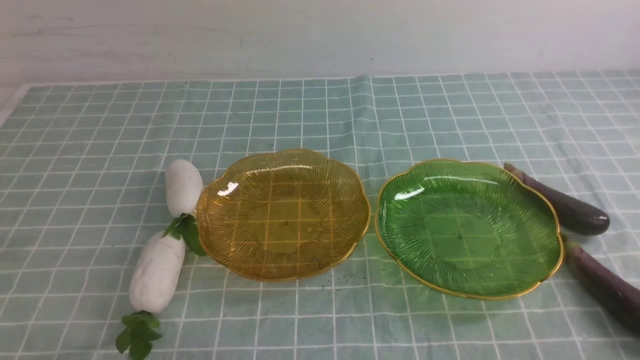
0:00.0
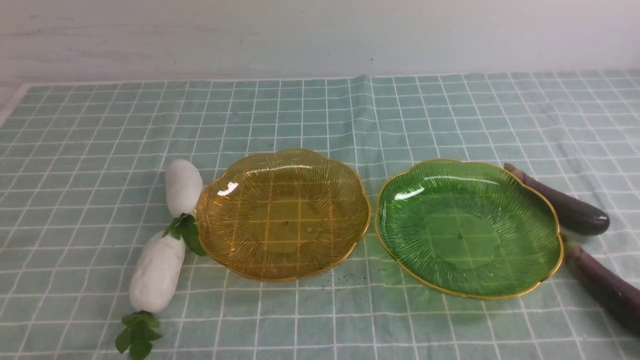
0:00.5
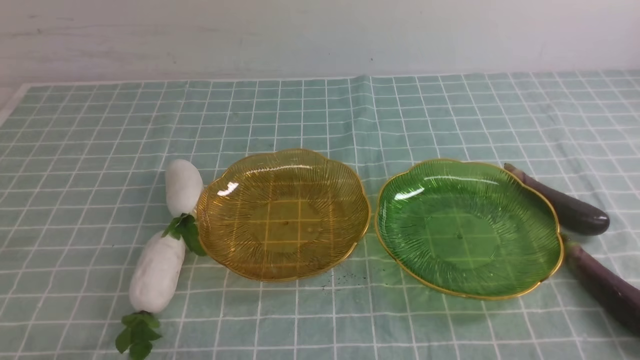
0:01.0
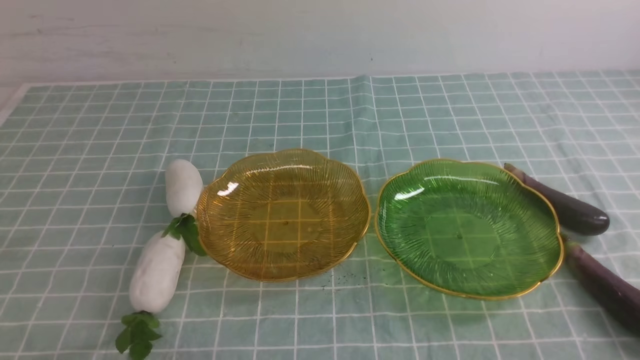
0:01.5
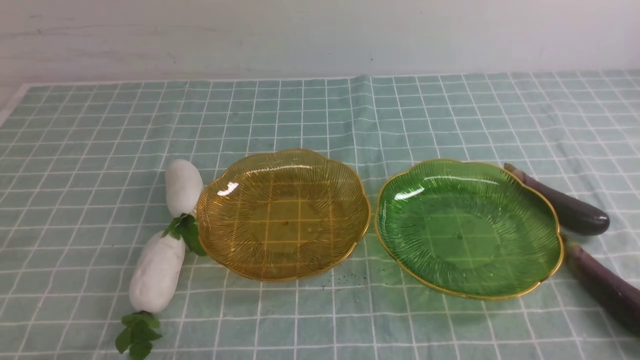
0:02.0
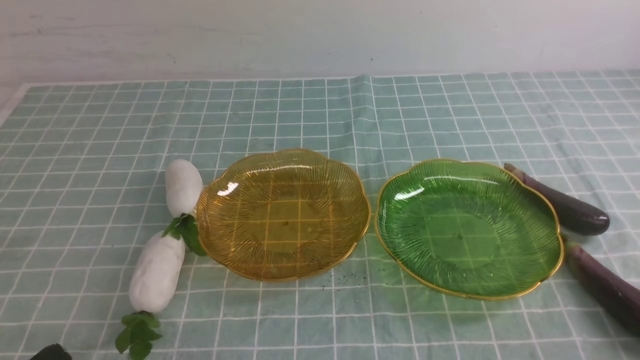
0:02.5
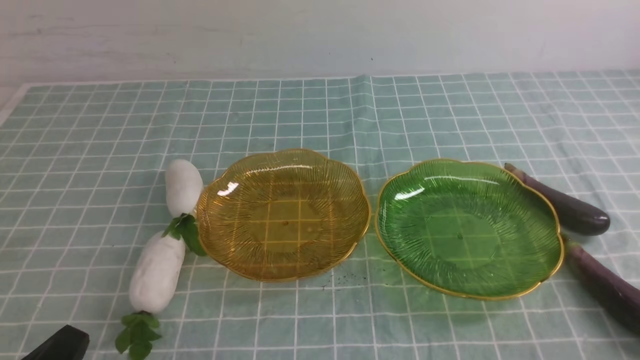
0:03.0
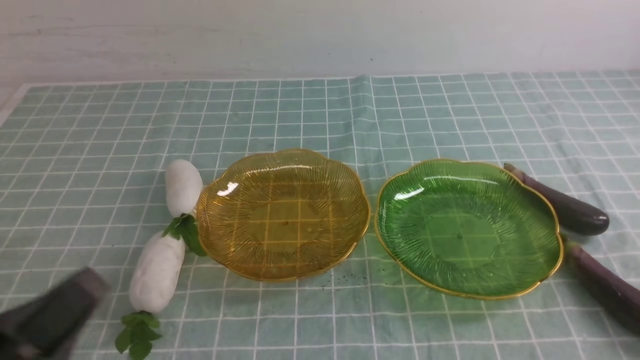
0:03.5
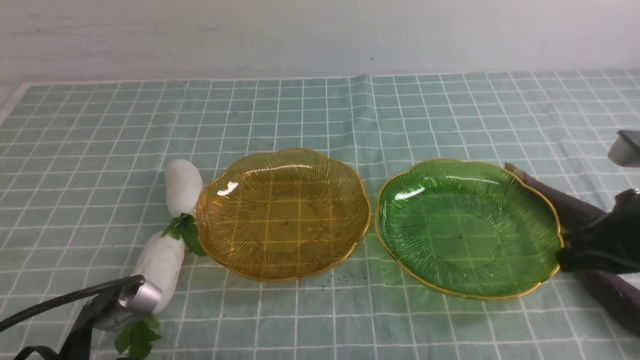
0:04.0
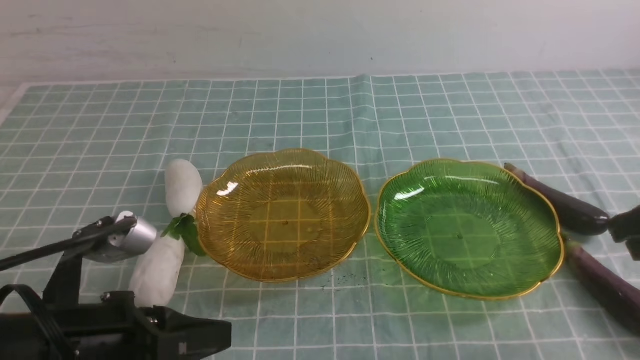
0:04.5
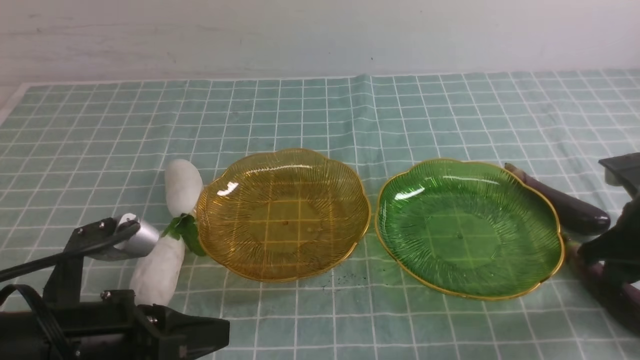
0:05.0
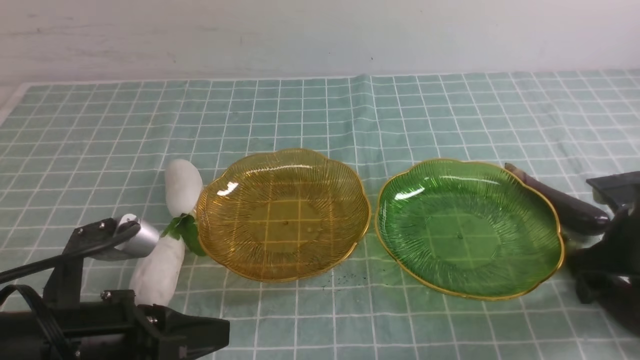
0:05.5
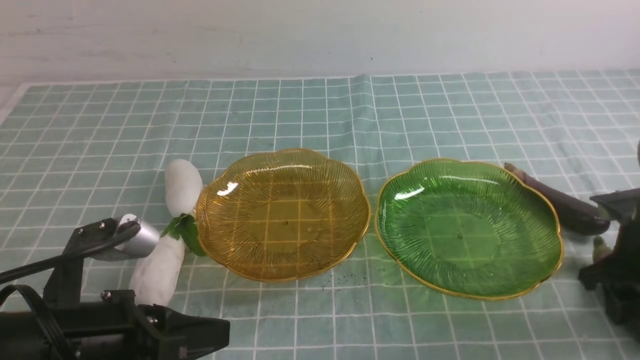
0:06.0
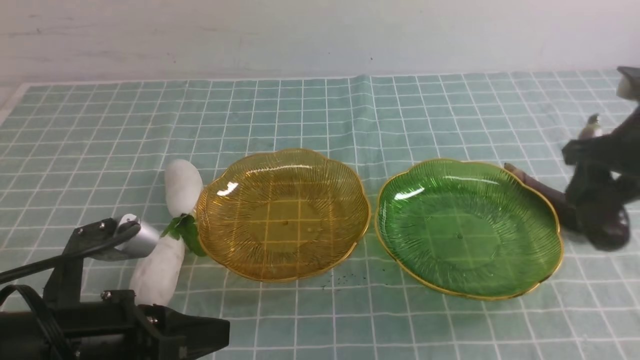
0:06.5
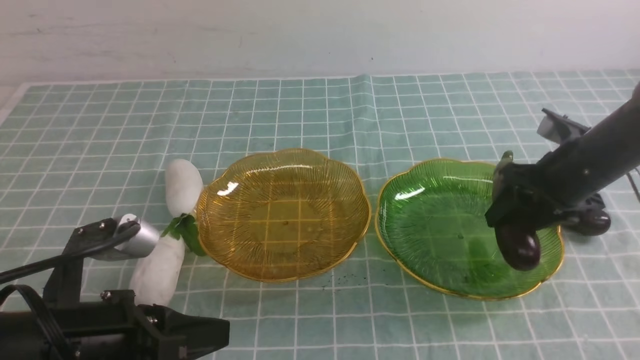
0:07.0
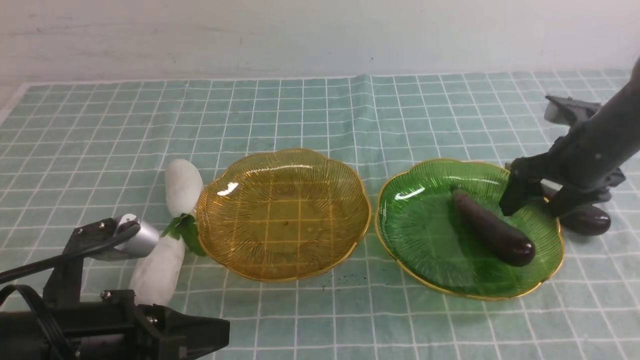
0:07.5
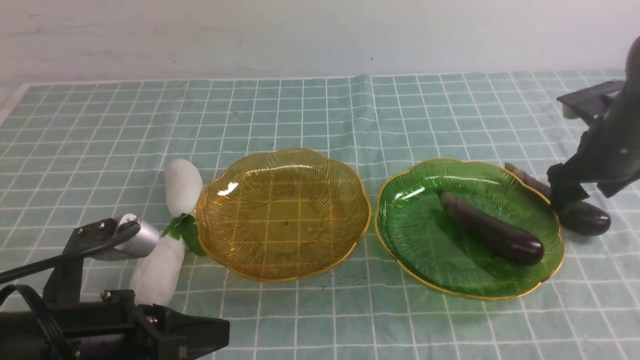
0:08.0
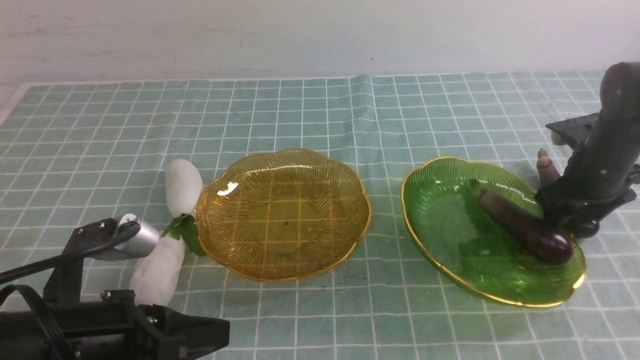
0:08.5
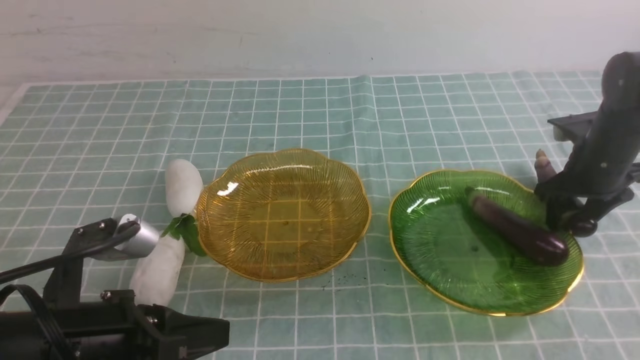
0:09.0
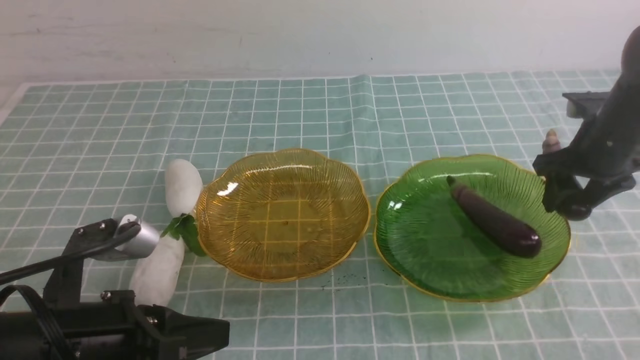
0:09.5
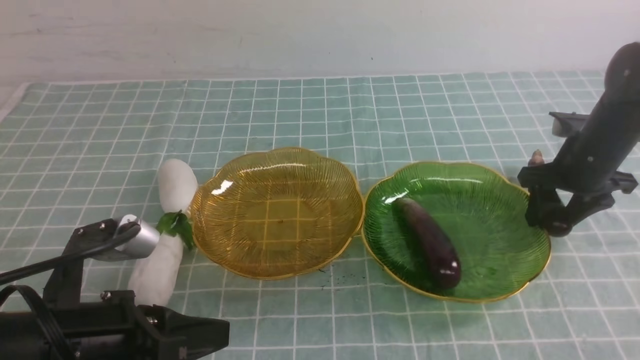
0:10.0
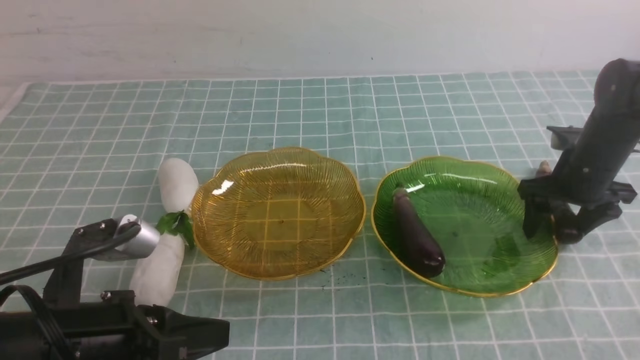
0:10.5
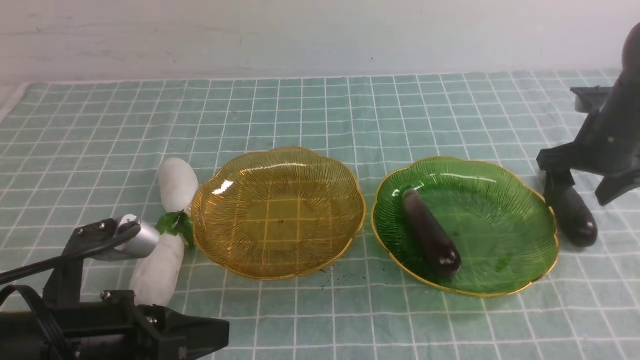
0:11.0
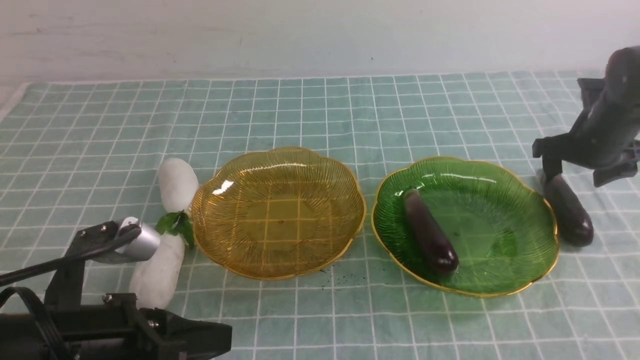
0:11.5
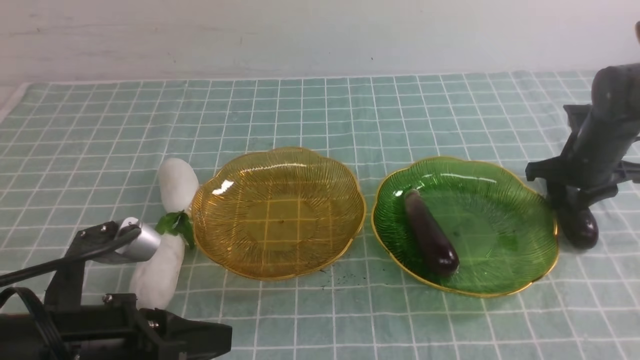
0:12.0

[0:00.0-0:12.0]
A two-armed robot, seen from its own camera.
Step, 0:00.0 to 0:07.0: use the right arm to grab an eggplant and put it into the right plate.
0:00.0 to 0:02.0: The two grippers keep their place.
0:02.0 to 0:04.0: The left gripper shifts roughly 10 cm forward and to the right; the right gripper is displaced forward and upward by roughly 20 cm.
0:04.0 to 0:06.0: The right gripper shifts approximately 15 cm downward, forward and to the right, and opens its fingers.
0:06.0 to 0:08.0: The right gripper moves forward, approximately 10 cm, and opens.

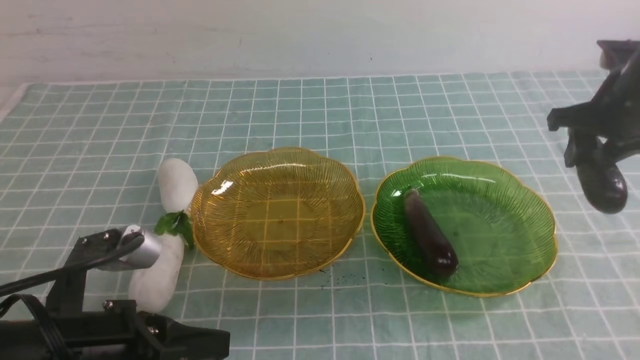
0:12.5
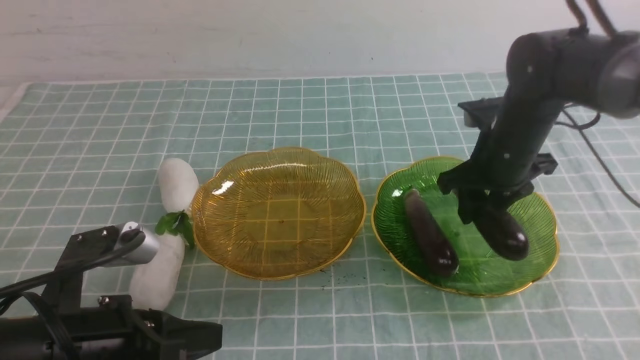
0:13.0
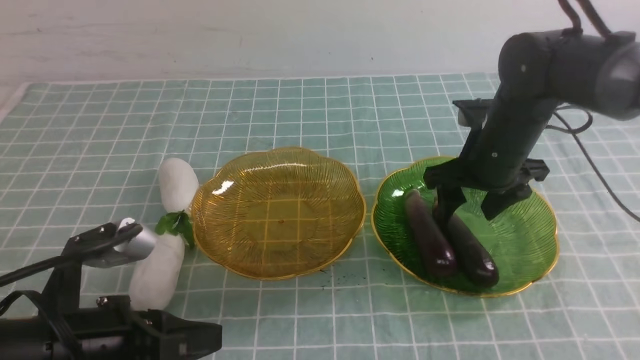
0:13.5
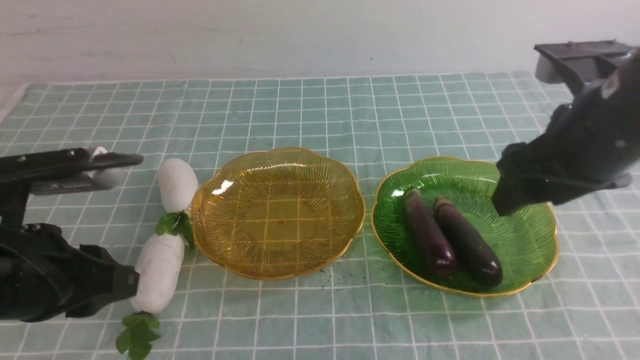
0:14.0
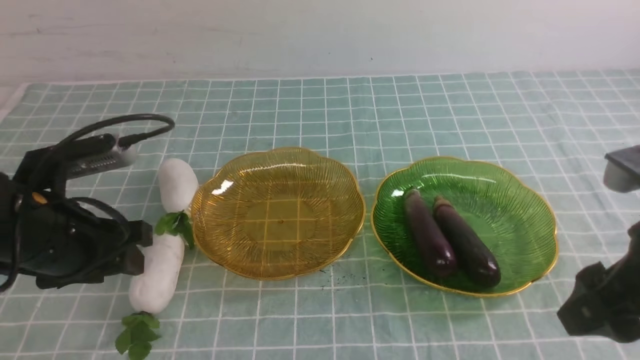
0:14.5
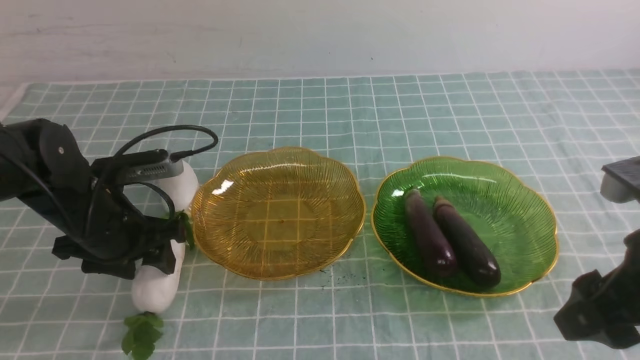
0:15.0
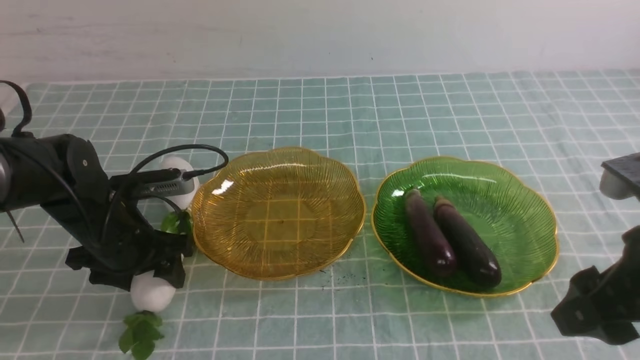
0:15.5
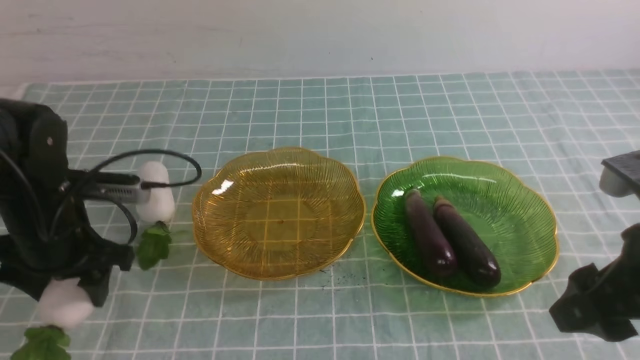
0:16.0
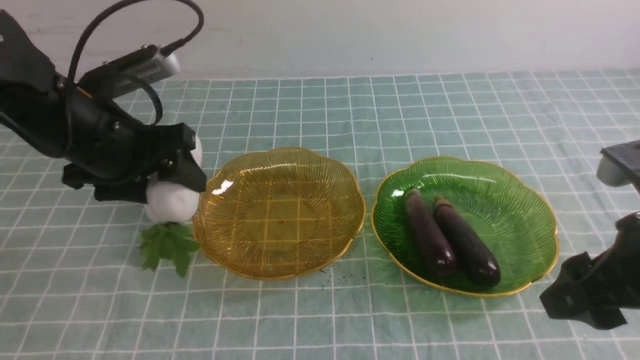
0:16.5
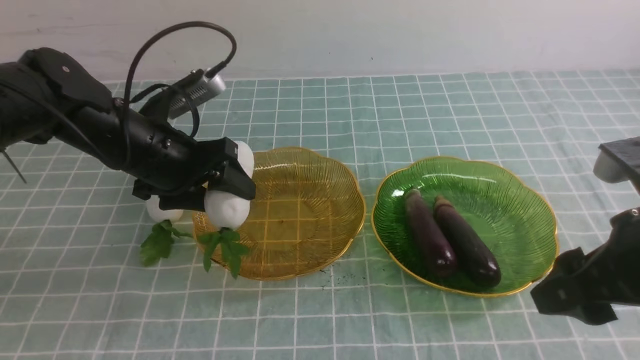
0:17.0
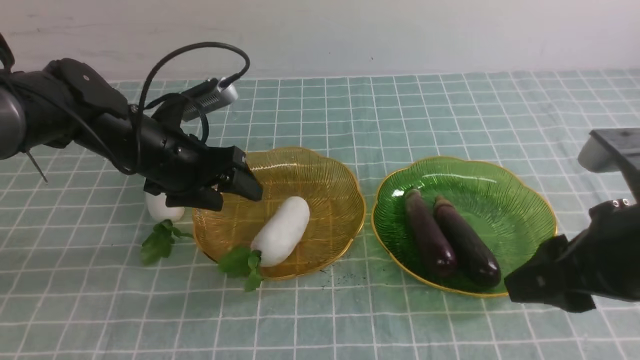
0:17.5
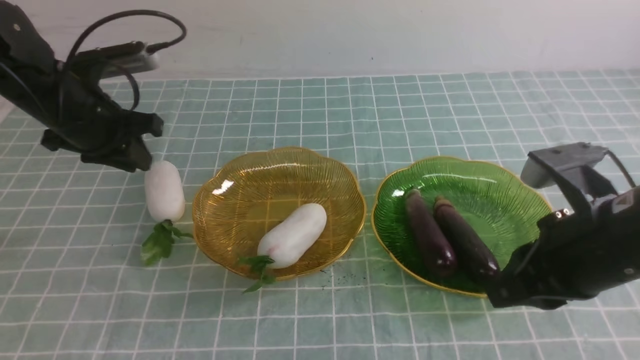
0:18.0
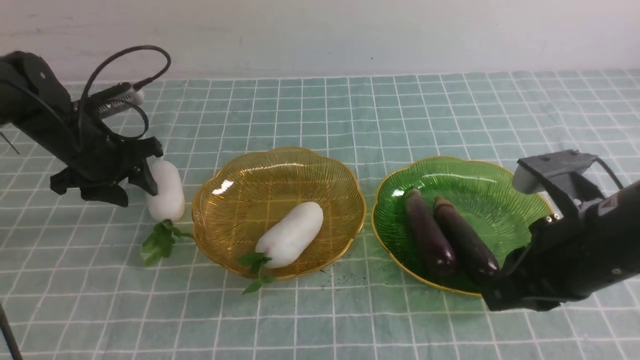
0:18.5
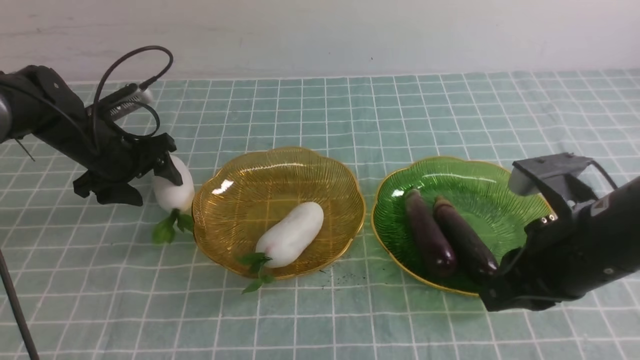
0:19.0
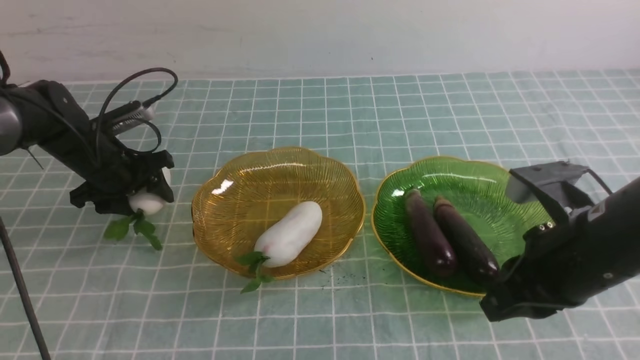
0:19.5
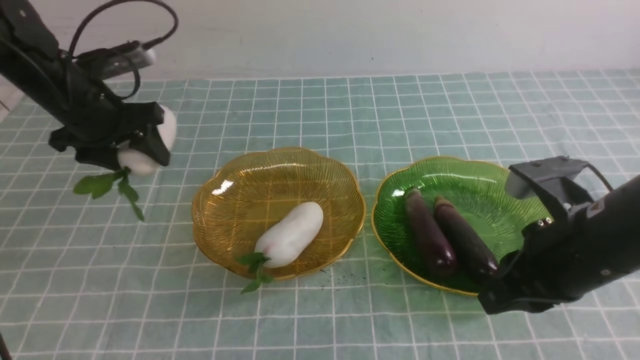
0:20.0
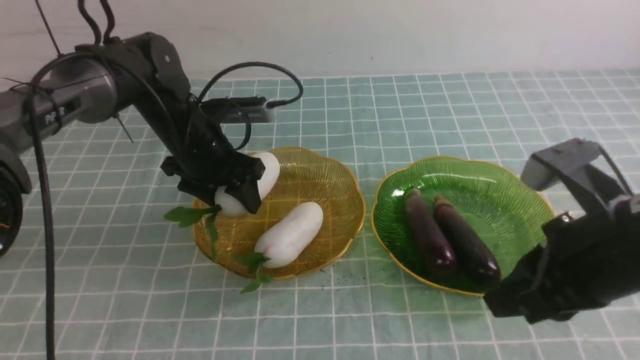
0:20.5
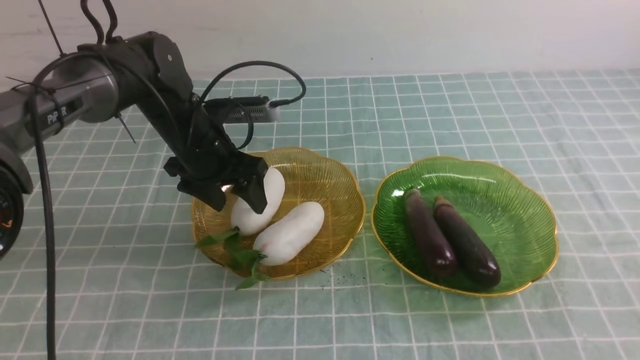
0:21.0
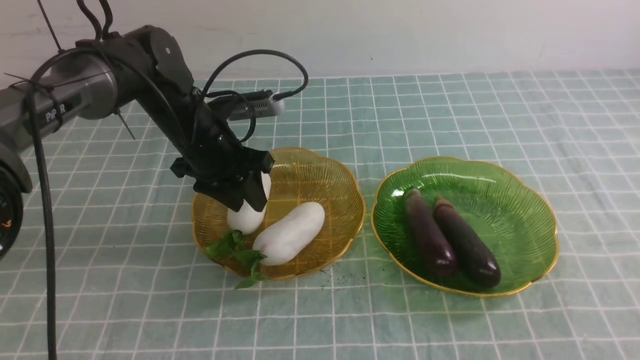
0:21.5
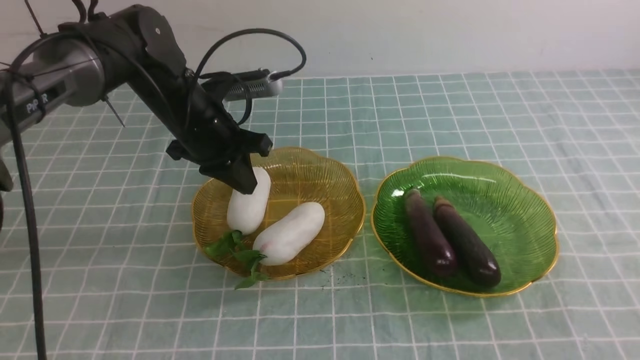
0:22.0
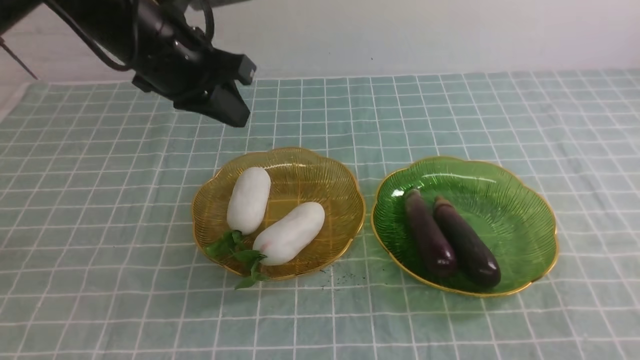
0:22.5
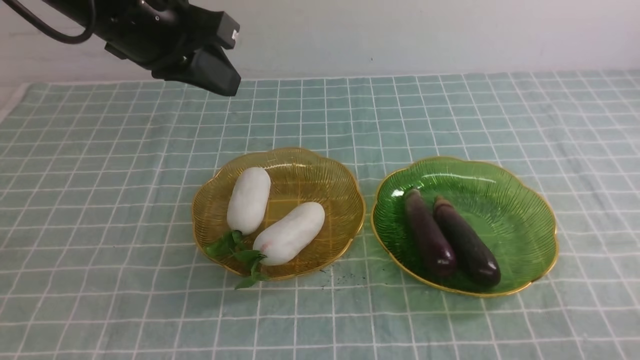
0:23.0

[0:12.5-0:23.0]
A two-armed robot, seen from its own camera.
Step, 0:14.0 to 0:17.0: use the left arm to grab a radish and put it into the left plate.
Step, 0:17.5 to 0:21.0: use the left arm to grab a radish and put it into the left plate.
0:12.5 to 0:14.5: The left gripper moves forward, some 10 cm, and opens its fingers. Meanwhile the right gripper goes about 25 cm backward.
0:14.5 to 0:16.5: The left gripper shifts approximately 5 cm forward, and travels downward and back again, roughly 10 cm each way.
0:16.5 to 0:19.0: The right gripper moves some 5 cm, and closes, while the left gripper is displaced downward, forward and to the left by roughly 20 cm, and closes and opens again.
0:19.0 to 0:21.0: The right gripper shifts about 20 cm backward and upward; the left gripper moves to the right, approximately 15 cm.
0:21.0 to 0:23.0: The right gripper is displaced downward by some 15 cm, while the left gripper moves upward and backward, approximately 20 cm, and closes.
